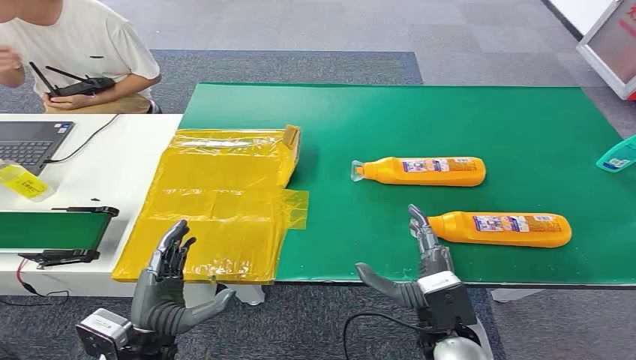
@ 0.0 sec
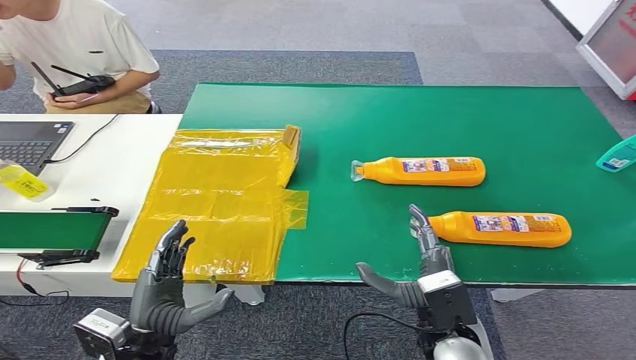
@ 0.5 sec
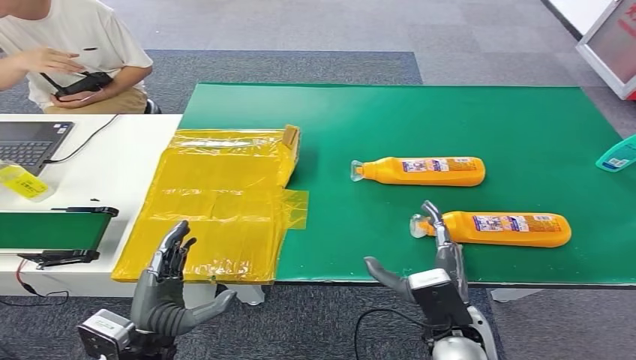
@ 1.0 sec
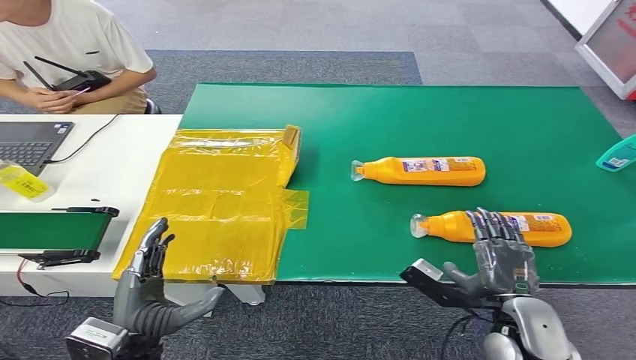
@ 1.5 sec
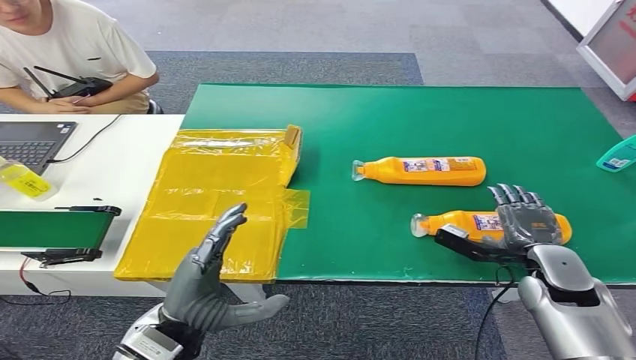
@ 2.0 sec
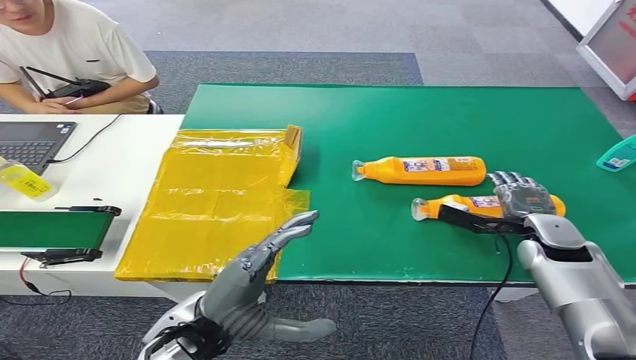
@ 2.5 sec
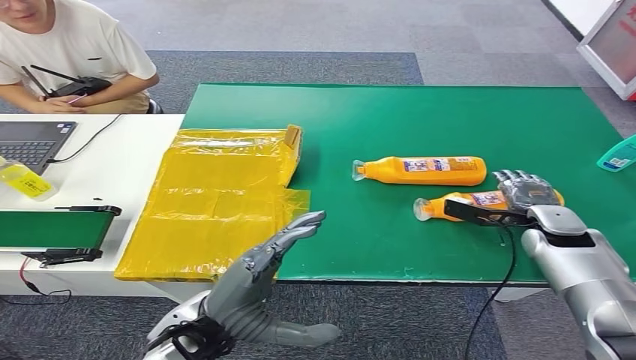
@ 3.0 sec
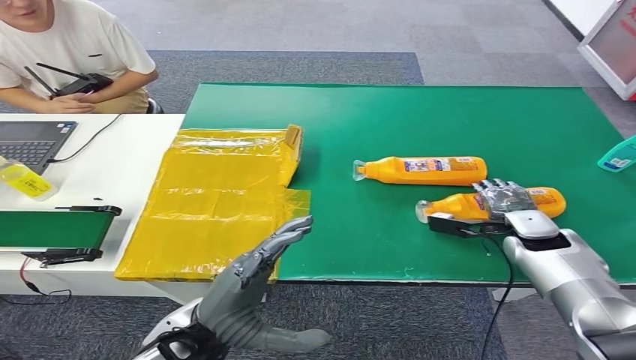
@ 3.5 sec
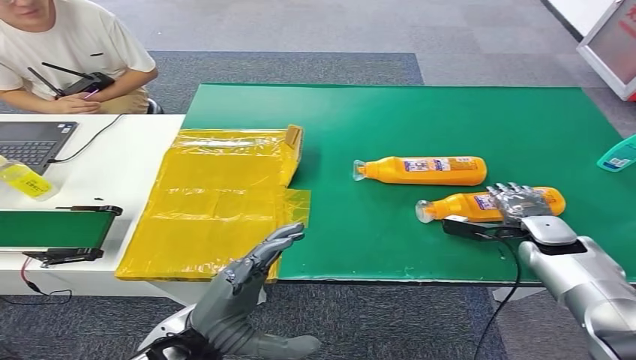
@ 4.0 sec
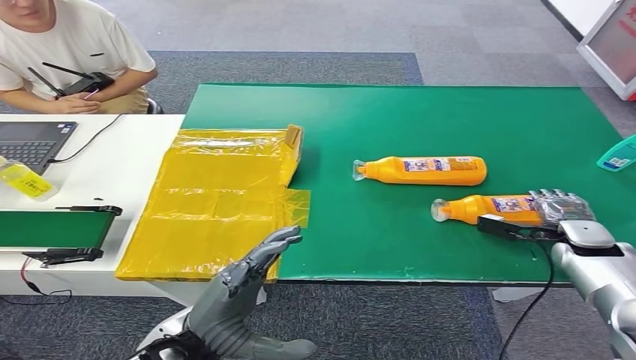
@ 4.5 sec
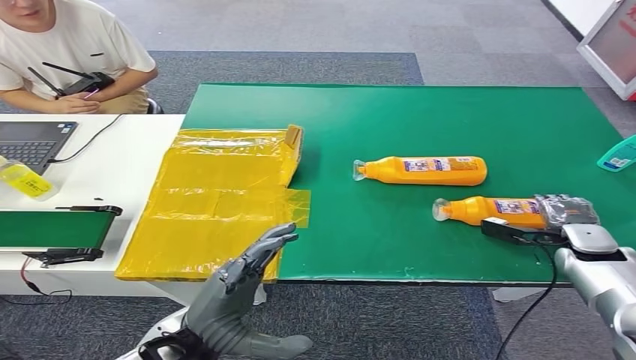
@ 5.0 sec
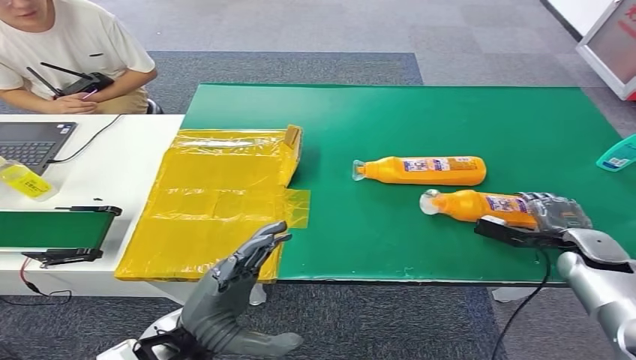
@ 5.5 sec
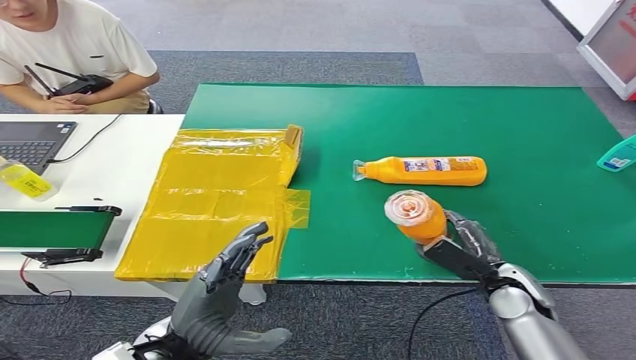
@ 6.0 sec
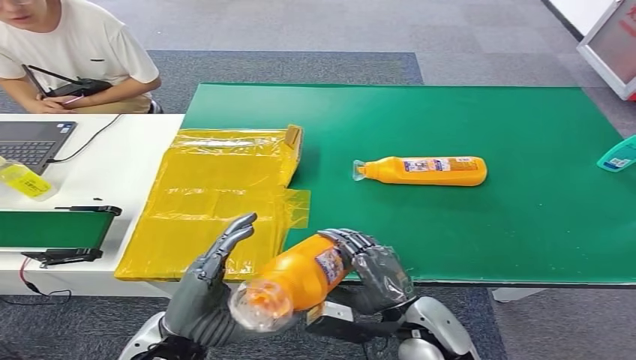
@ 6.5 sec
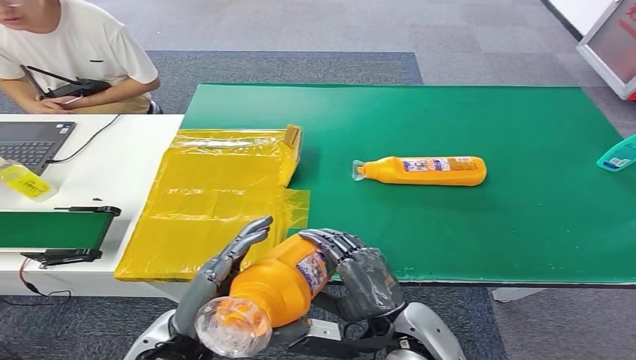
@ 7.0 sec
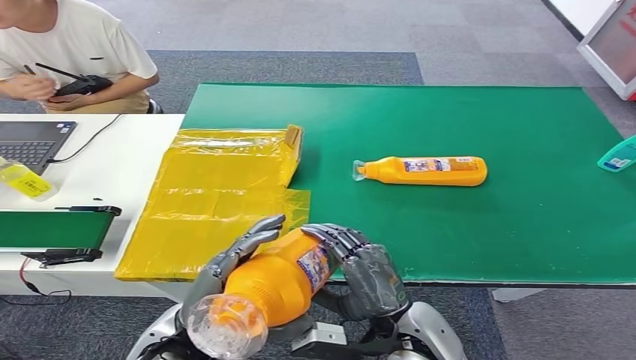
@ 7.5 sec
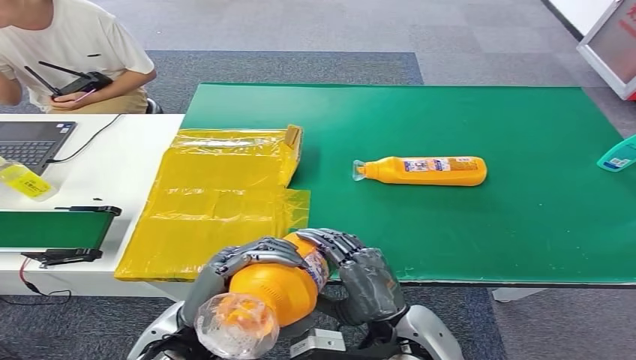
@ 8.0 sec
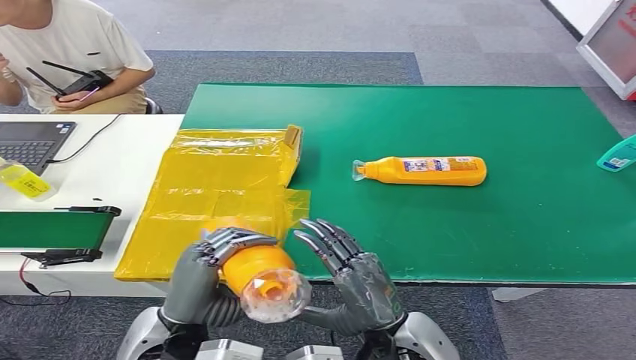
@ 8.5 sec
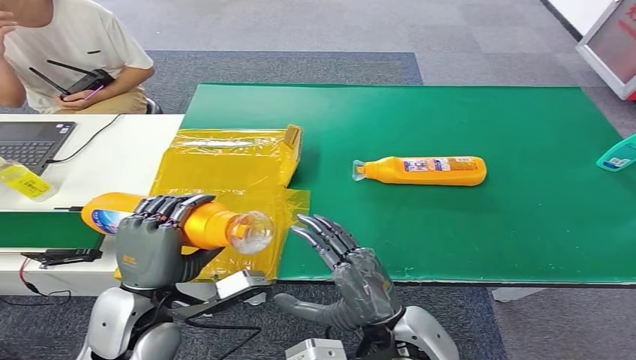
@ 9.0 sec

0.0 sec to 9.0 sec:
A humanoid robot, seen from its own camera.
Step, 0.0 sec to 7.0 sec: Pick up the bottle from the table.
2.0 sec to 4.5 sec: The right hand heads forward and to the right, covering approximately 10 cm.
4.5 sec to 7.0 sec: The right hand goes approximately 35 cm to the left and backward.
7.0 sec to 9.0 sec: The left hand changes place by approximately 5 cm.

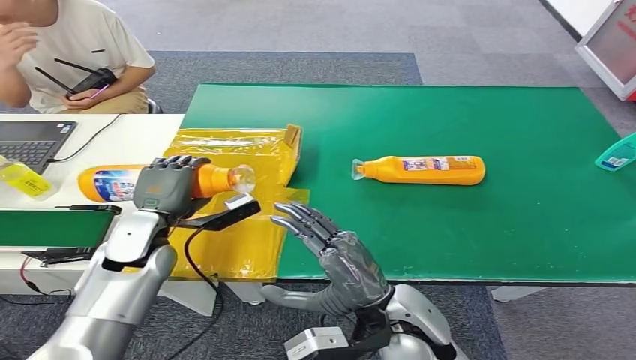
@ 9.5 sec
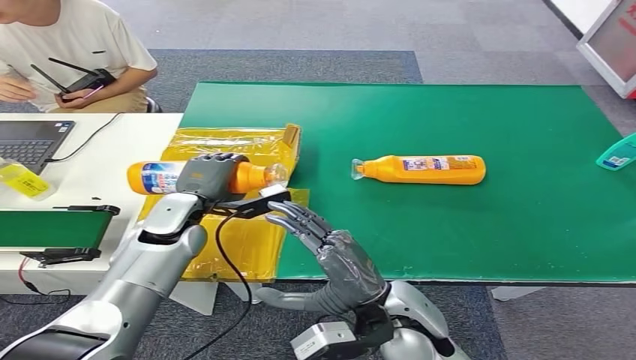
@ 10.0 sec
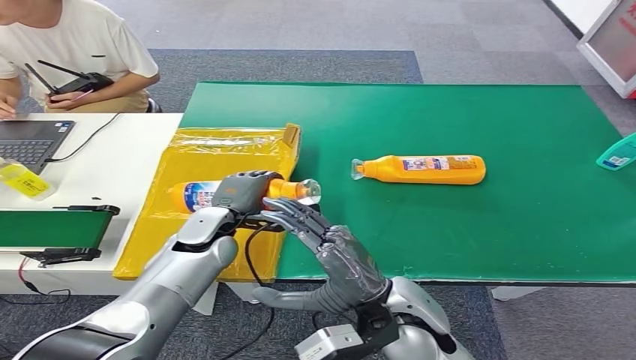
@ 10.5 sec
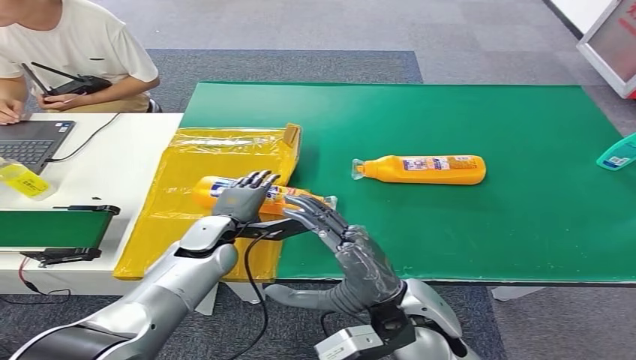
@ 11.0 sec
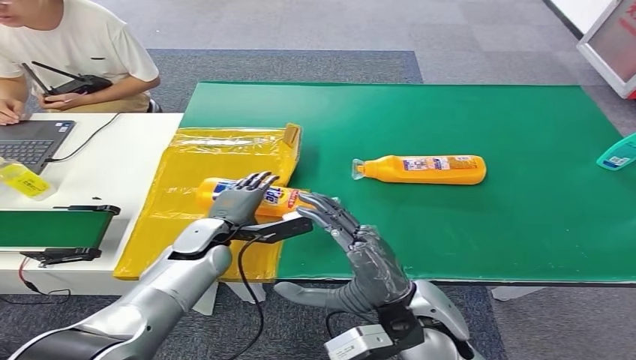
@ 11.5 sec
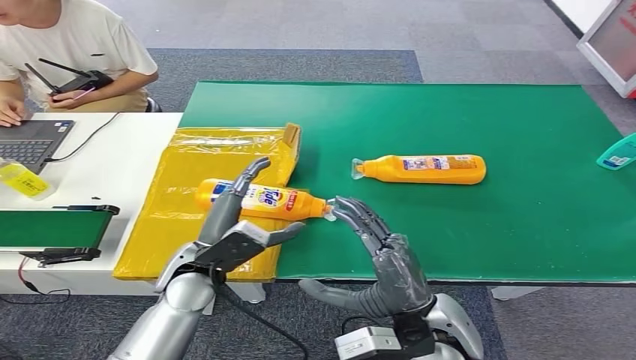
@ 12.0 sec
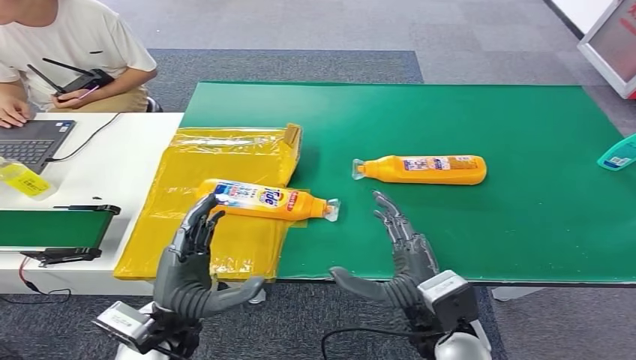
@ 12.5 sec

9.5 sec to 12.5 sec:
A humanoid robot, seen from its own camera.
Step, 9.5 sec to 12.5 sec: Turn the bottle to the front side.
11.0 sec to 12.5 sec: The left hand moves backward, about 20 cm, while the right hand moves some 5 cm.
